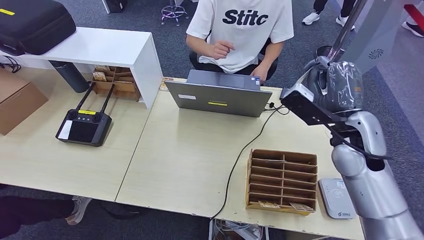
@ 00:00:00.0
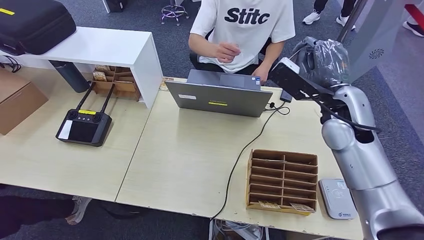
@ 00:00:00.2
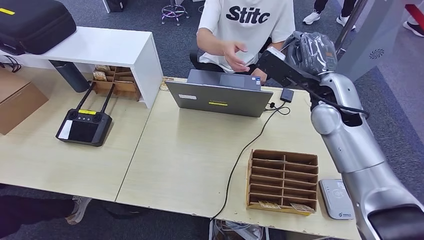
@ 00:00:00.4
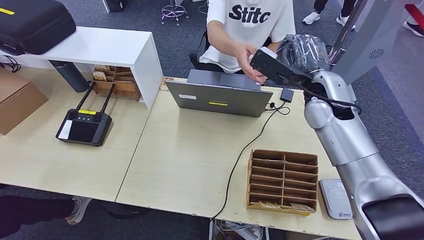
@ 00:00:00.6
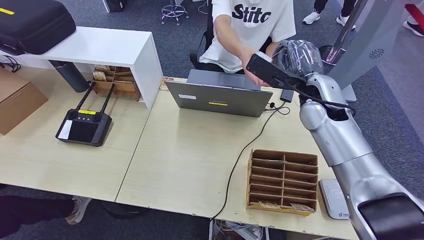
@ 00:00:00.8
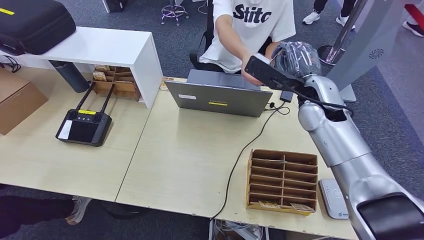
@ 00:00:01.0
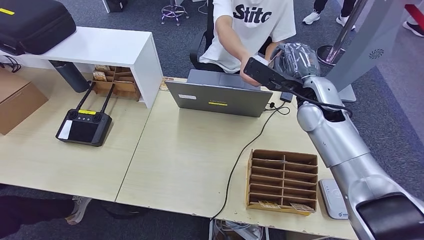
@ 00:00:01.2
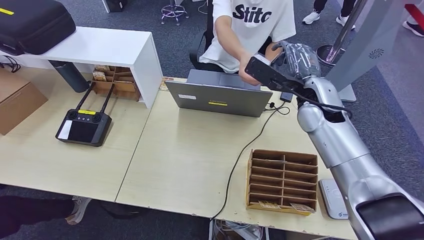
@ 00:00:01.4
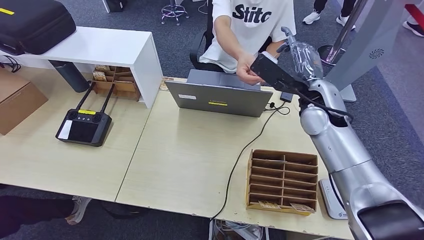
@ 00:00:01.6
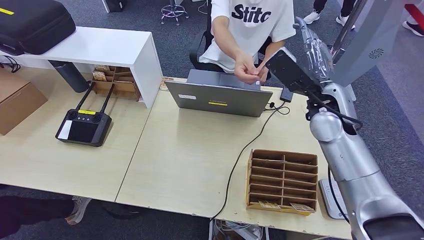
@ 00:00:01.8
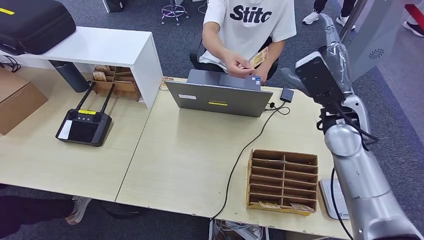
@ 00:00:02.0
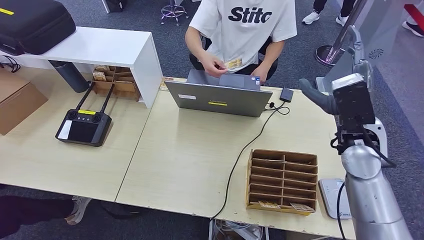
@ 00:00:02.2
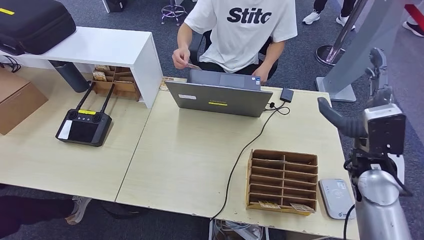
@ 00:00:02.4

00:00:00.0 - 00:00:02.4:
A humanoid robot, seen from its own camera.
Step, 00:00:00.0 - 00:00:02.4: Hand the room key to the person.
00:00:00.0 - 00:00:01.2: The right hand heads forward and to the left, covering roughly 10 cm.
00:00:01.2 - 00:00:02.4: The right hand heads backward, to the right and downward, covering some 15 cm.
